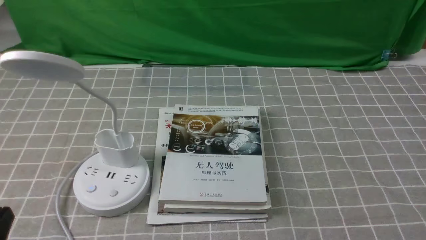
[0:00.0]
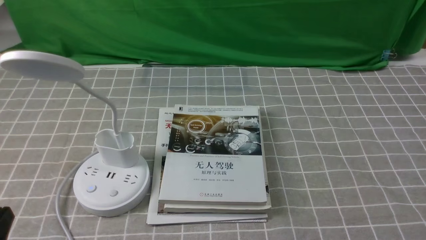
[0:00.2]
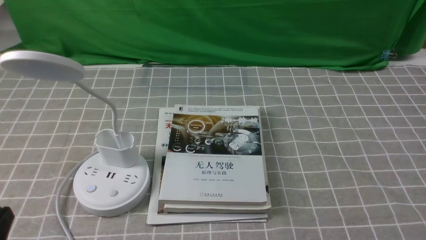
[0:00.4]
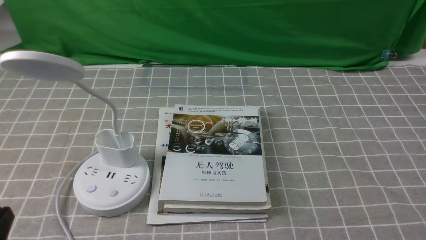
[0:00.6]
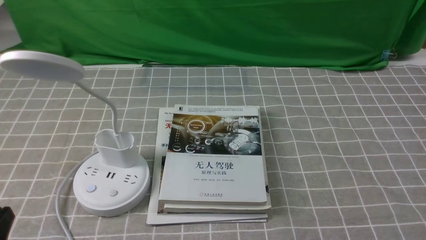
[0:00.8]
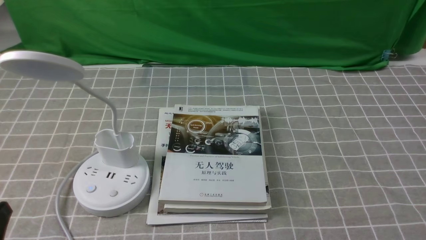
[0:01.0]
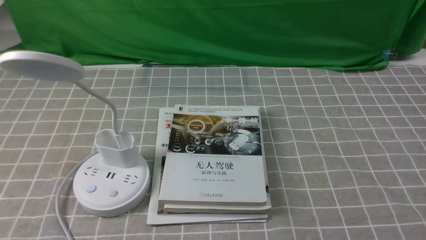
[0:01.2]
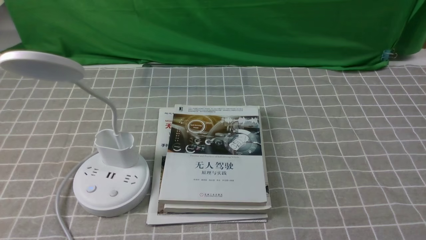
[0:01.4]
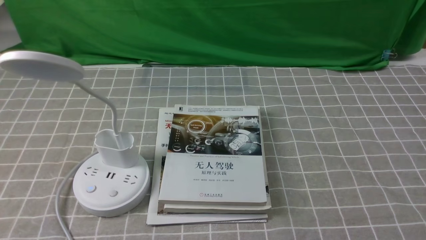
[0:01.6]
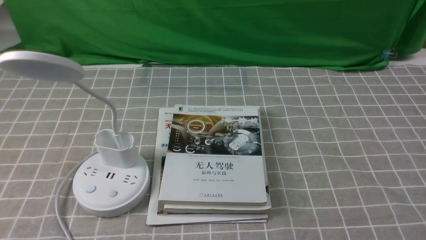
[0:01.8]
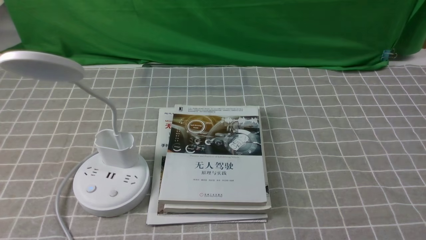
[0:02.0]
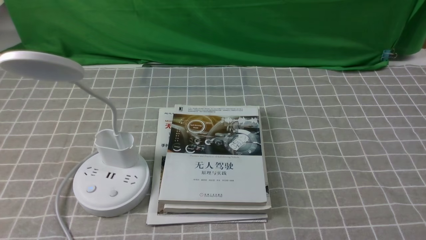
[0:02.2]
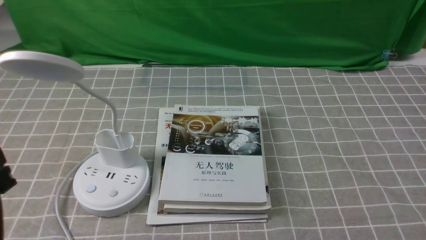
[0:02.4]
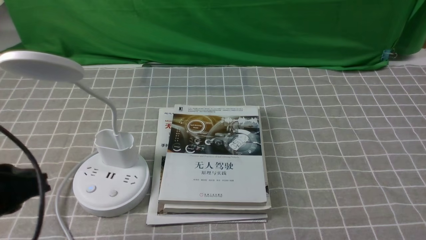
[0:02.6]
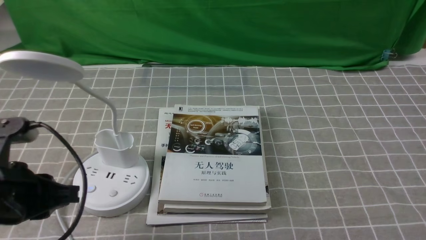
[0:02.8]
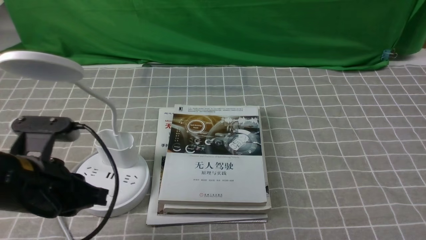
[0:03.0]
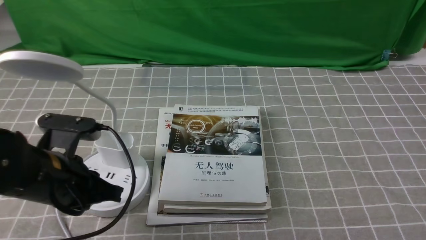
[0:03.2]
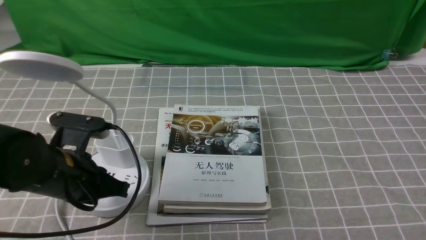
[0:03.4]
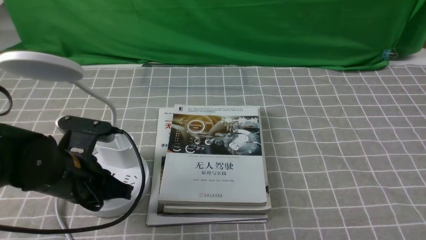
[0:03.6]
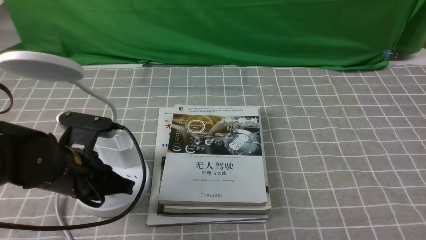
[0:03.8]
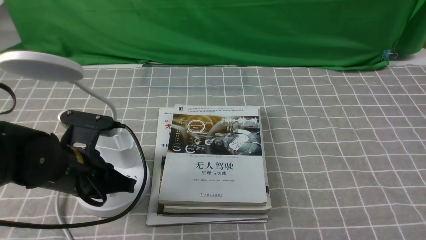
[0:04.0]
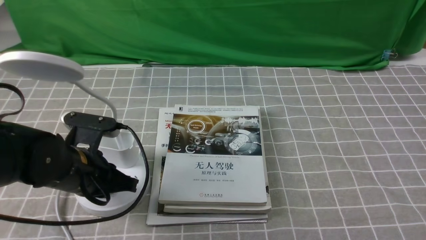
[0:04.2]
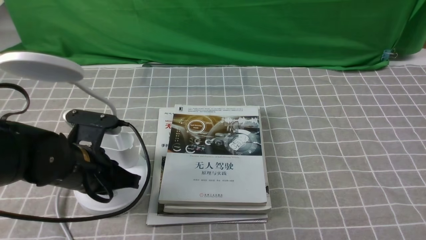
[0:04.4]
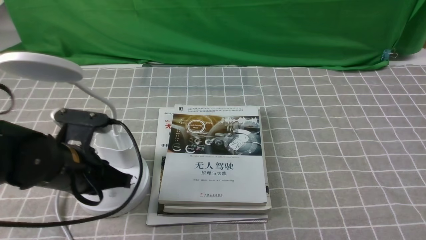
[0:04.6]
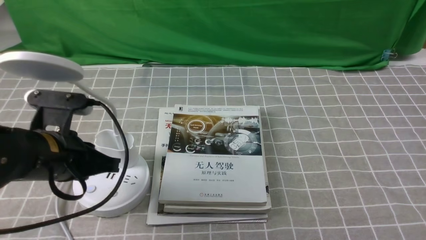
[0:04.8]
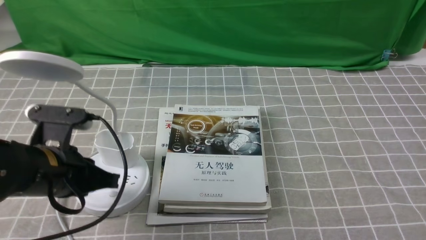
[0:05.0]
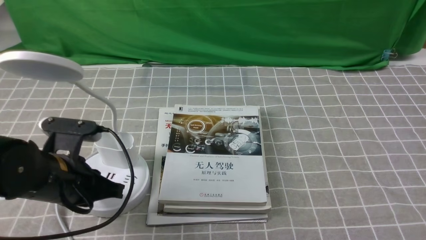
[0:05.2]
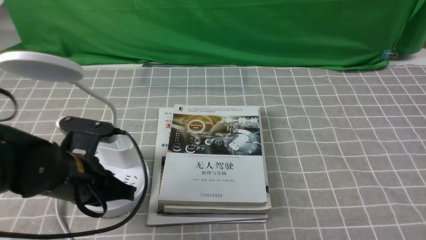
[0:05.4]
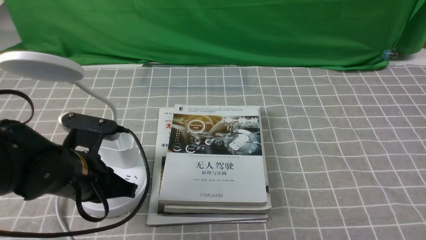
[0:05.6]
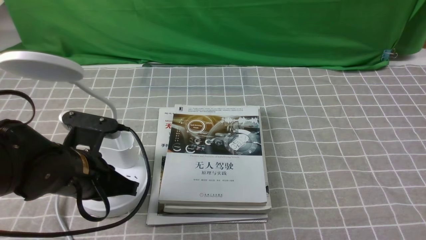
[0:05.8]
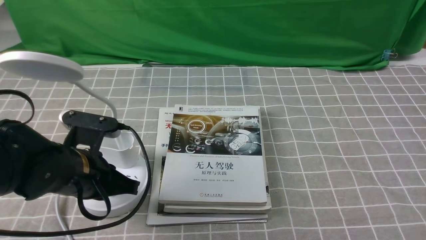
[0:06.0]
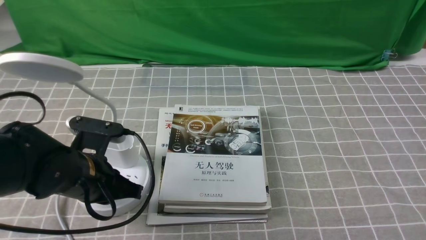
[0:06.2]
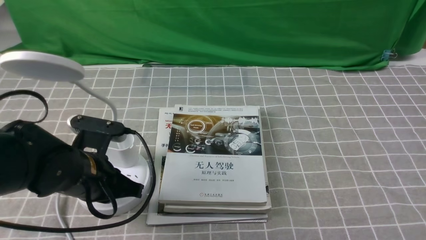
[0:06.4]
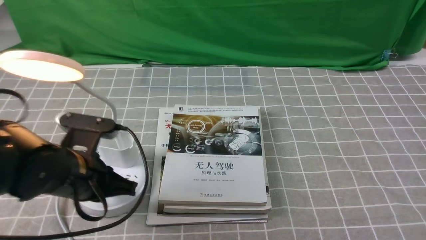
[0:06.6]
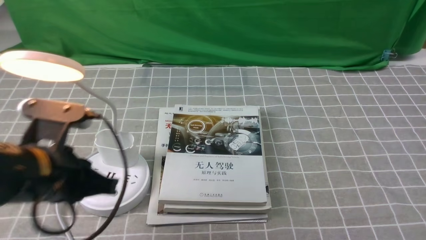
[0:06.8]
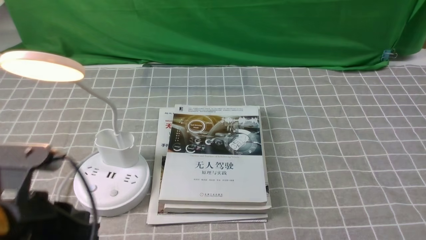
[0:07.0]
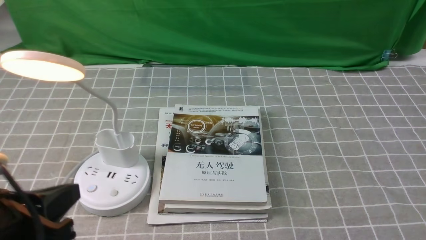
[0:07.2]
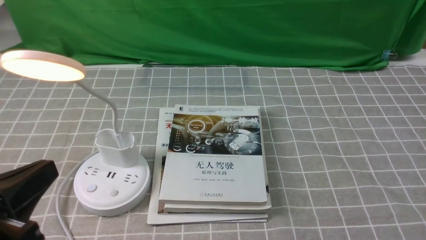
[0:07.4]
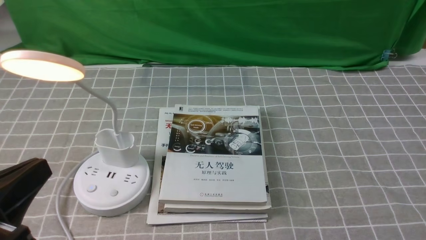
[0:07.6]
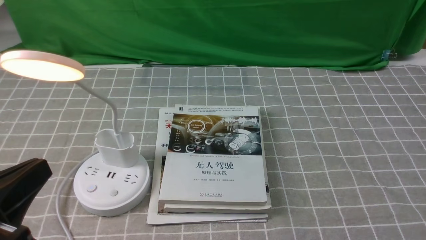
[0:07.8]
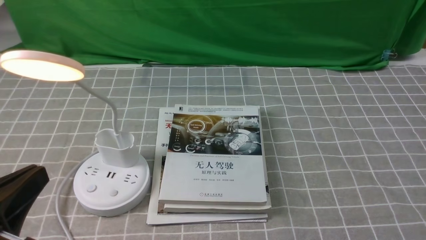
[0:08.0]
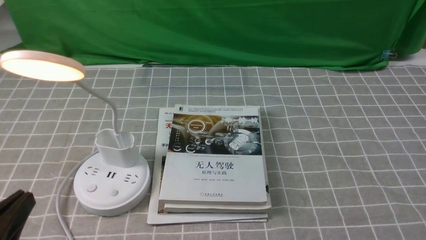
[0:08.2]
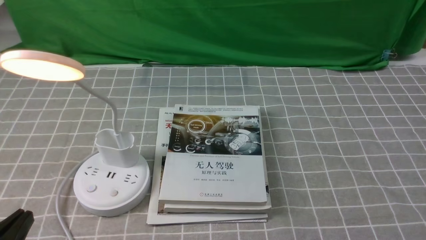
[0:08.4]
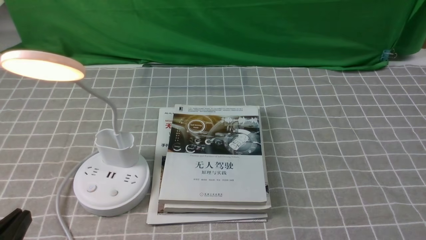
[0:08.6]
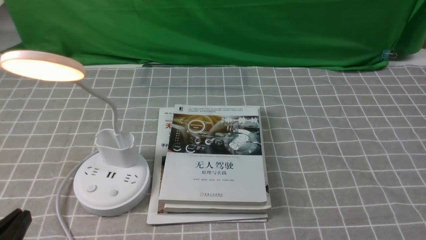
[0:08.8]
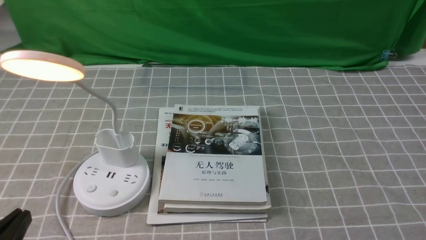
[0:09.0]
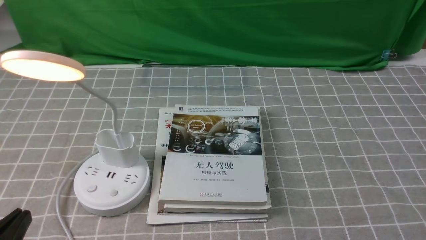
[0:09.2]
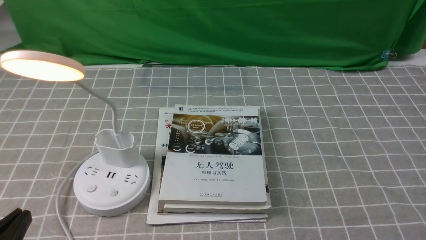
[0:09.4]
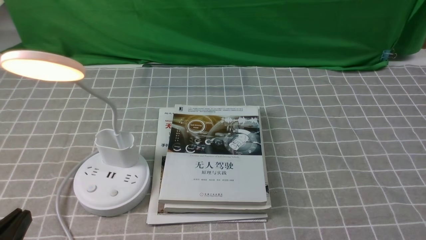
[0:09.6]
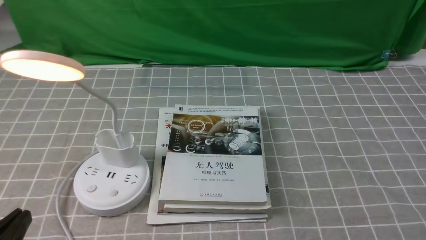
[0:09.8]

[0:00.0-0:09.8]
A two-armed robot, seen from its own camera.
Step, 0:00.0 to 0:06.6: use the left arm to press the button switch on the lamp holder.
0:01.4 to 0:02.8: The left gripper travels forward by some 10 cm.
0:02.8 to 0:04.2: The left gripper goes approximately 10 cm forward and downward, and closes its fingers.
0:04.2 to 0:05.6: The grippers move only a little.
0:05.6 to 0:07.0: The left gripper travels backward and upward by roughly 10 cm.
0:07.0 to 0:08.4: The left gripper shifts roughly 10 cm backward and downward.
0:08.4 to 0:09.8: Both grippers stay about where they are.
